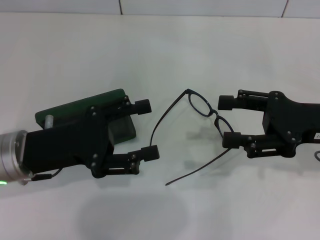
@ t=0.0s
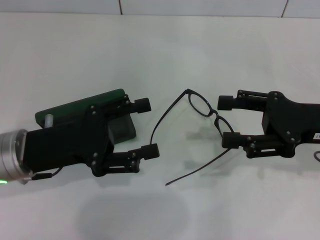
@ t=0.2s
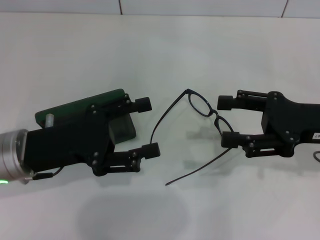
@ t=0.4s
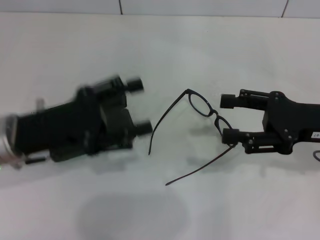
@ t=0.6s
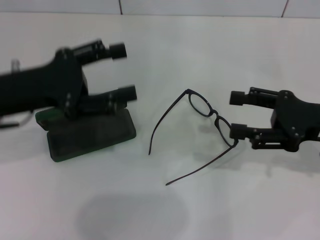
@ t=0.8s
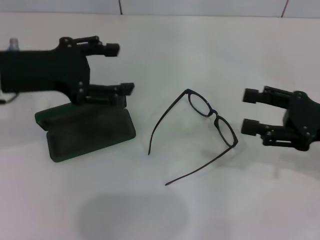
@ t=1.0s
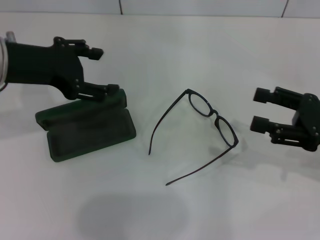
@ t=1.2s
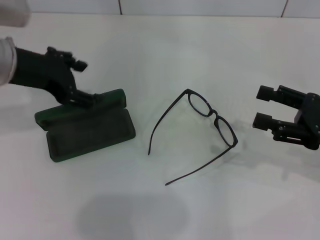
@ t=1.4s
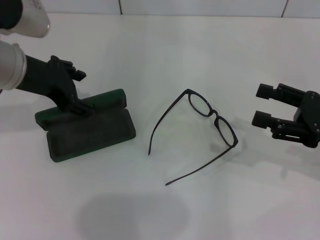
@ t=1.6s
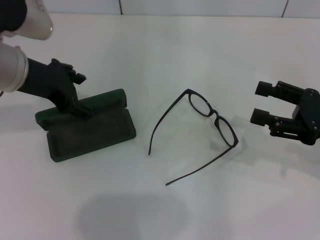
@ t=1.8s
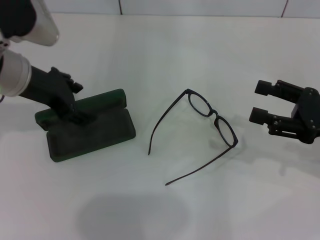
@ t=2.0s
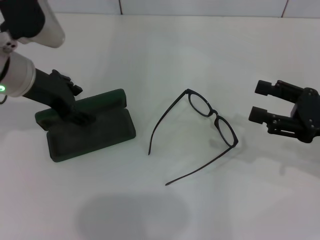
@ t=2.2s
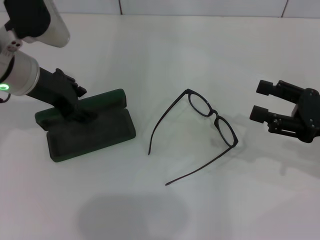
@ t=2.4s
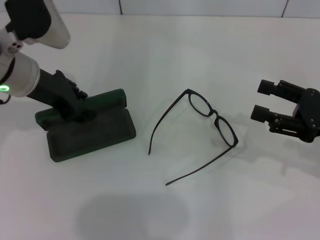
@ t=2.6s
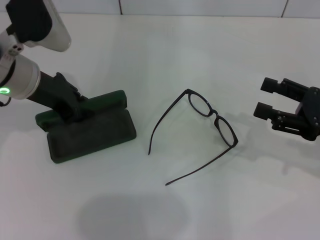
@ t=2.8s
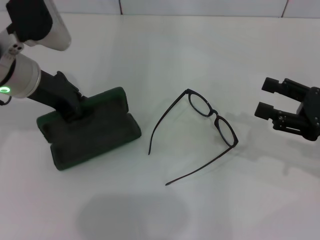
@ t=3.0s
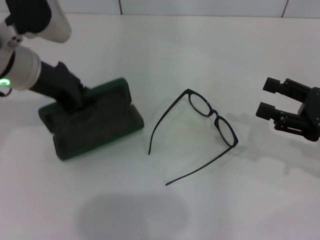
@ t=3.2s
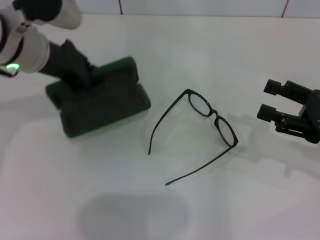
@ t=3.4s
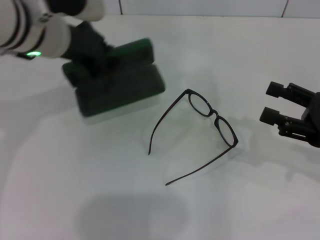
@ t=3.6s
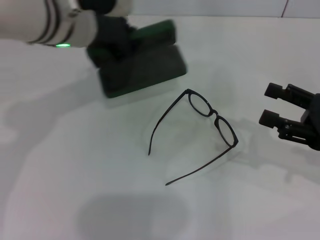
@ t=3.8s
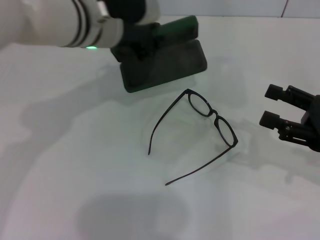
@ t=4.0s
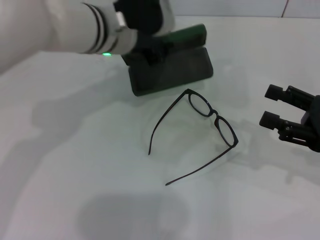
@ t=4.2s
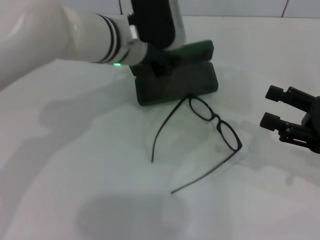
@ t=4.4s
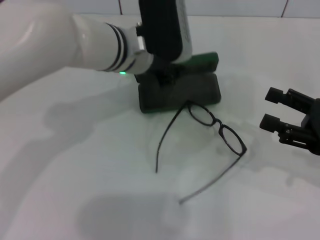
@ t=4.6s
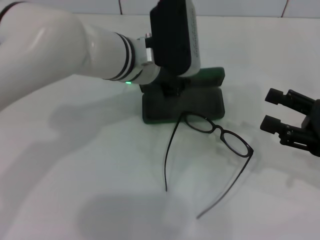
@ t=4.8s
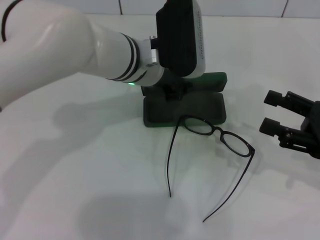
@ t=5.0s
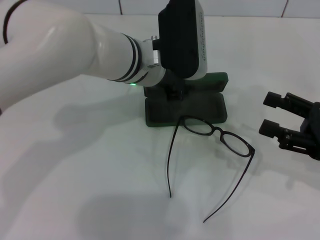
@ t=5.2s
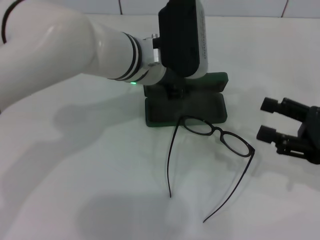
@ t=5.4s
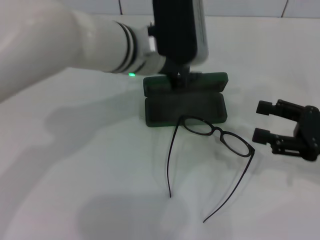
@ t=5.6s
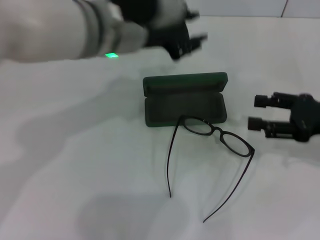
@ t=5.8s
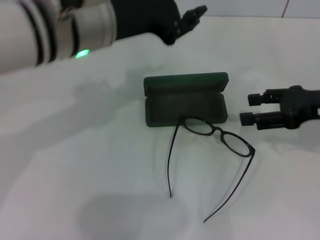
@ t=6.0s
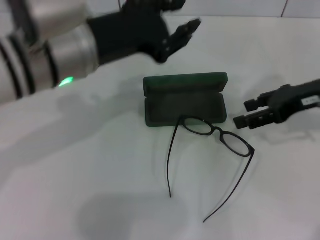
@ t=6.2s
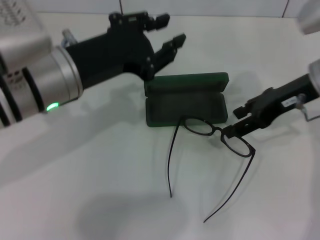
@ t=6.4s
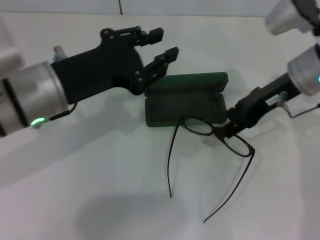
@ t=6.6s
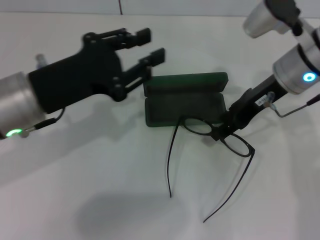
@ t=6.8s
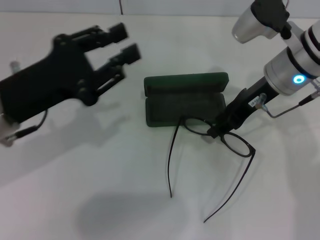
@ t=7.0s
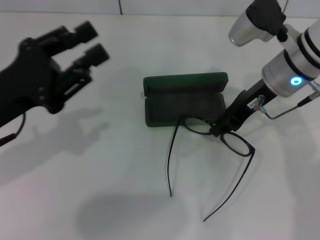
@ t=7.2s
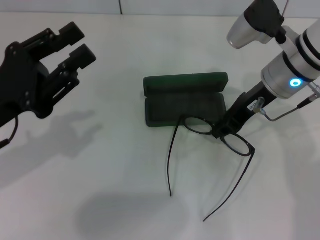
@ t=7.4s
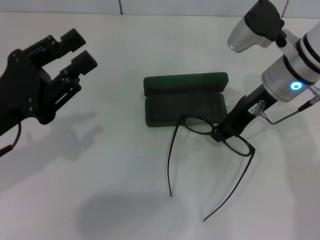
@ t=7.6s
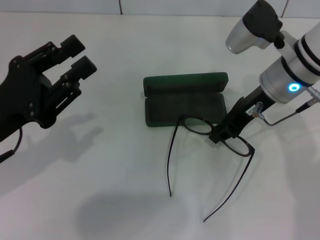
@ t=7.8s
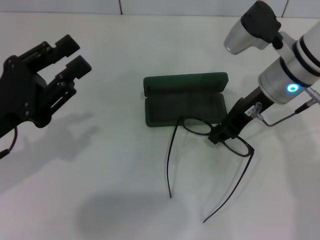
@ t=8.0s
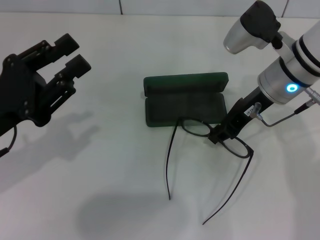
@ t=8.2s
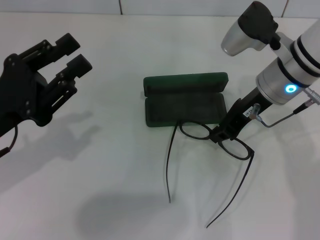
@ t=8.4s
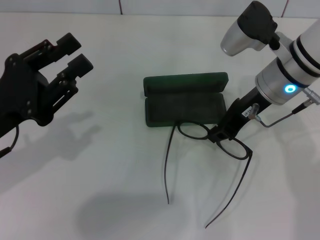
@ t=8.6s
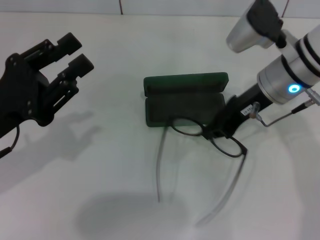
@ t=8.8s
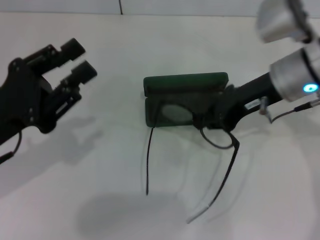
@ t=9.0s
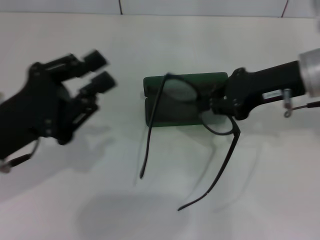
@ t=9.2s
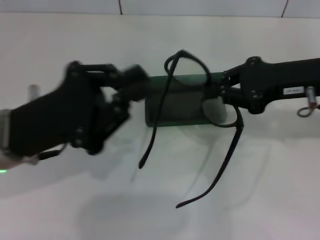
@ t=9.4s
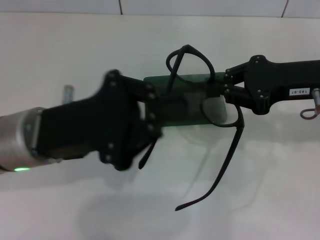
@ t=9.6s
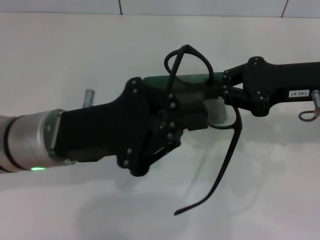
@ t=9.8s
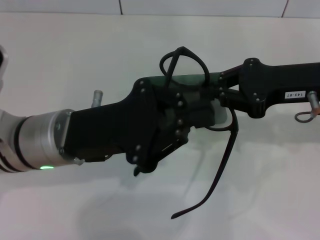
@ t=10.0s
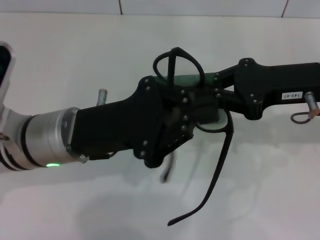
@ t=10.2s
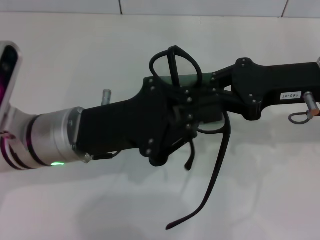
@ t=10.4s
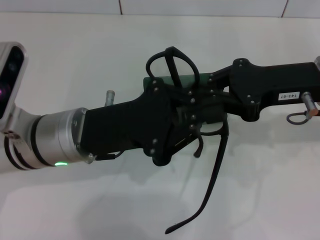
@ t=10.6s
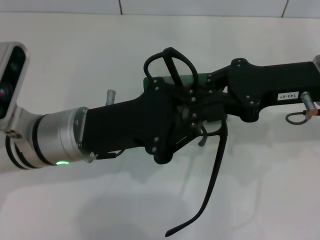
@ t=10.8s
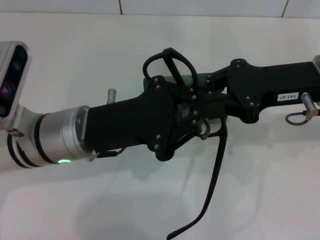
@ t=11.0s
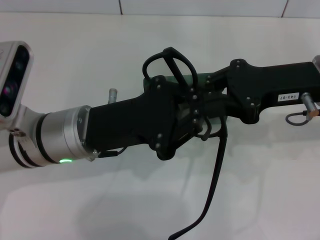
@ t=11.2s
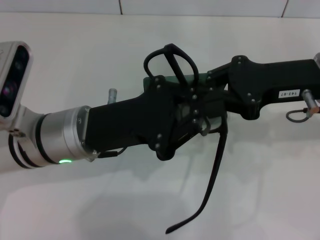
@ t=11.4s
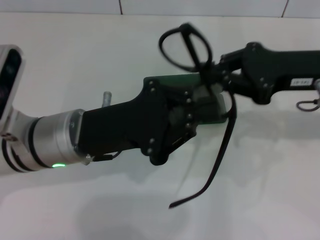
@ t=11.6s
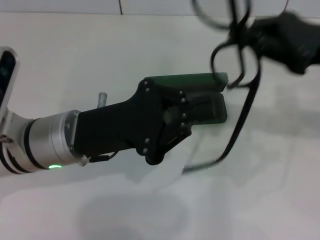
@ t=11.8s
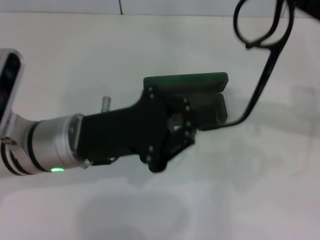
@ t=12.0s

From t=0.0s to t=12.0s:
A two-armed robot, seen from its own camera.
Step, from t=0.0s to t=2.8s: Grab the glasses case with your left hand.
Step, from t=3.0s to t=5.2s: Place the glasses case in the center of the table with your left hand.
Step, from t=5.6s to t=8.4s: Grab the eyeglass frame with your right hand.
From t=0.0s to t=1.6s: The left gripper heads upward and forward, covering approximately 15 cm. Meanwhile the right gripper ends up about 5 cm from where it was.
From t=1.6s to t=3.0s: The left gripper closes up.
From t=3.0s to t=4.4s: The left gripper shifts some 15 cm to the right.
From t=4.4s to t=6.0s: The right gripper heads forward, covering about 5 cm, while the left gripper goes approximately 10 cm backward and upward.
From t=6.0s to t=7.6s: The right gripper heads to the left and forward, covering some 15 cm, and closes. The left gripper is displaced to the left, downward and backward by about 20 cm.
From t=9.0s to t=10.4s: The right gripper changes place by some 5 cm; the left gripper moves to the right, some 10 cm, and closes.
From t=10.4s to t=12.0s: The right gripper shifts roughly 5 cm to the right.

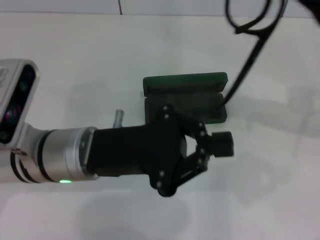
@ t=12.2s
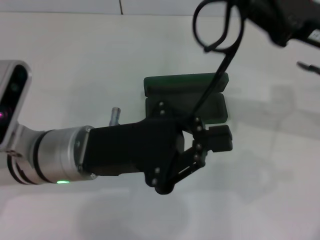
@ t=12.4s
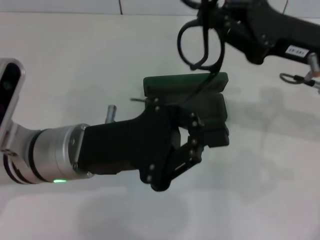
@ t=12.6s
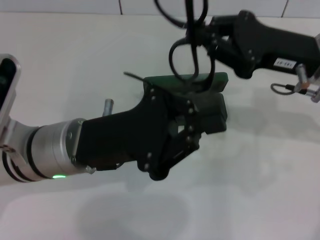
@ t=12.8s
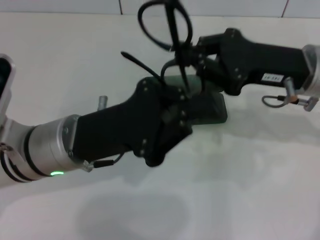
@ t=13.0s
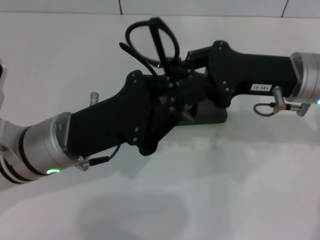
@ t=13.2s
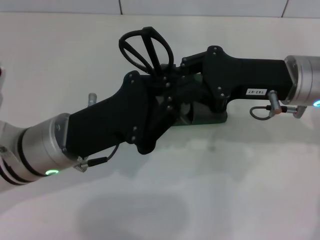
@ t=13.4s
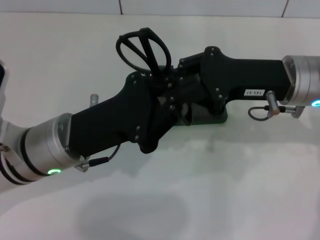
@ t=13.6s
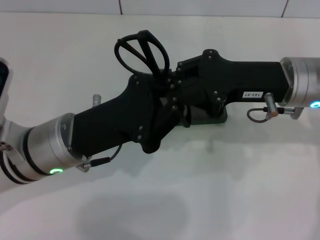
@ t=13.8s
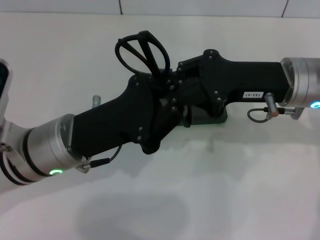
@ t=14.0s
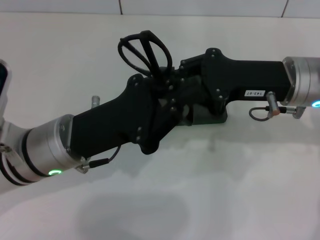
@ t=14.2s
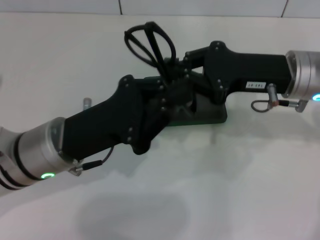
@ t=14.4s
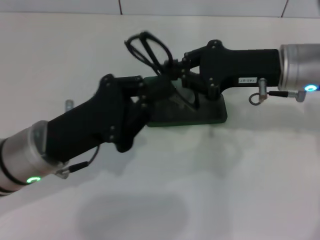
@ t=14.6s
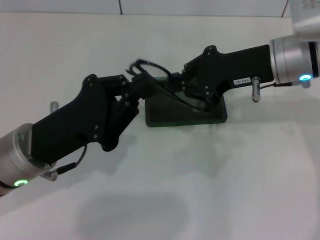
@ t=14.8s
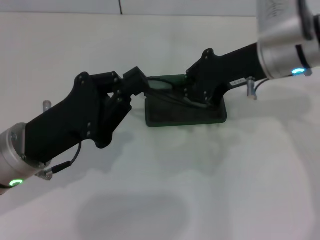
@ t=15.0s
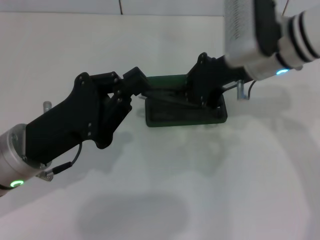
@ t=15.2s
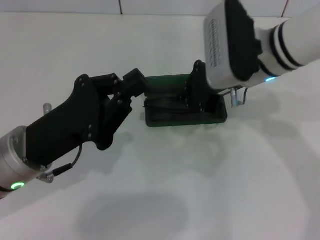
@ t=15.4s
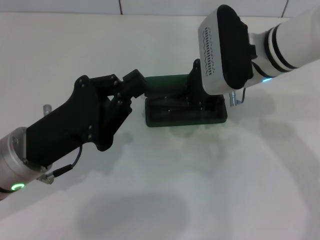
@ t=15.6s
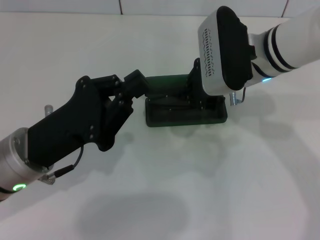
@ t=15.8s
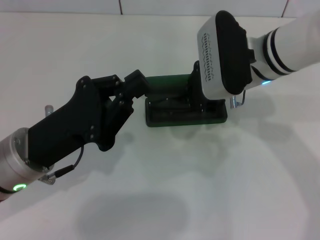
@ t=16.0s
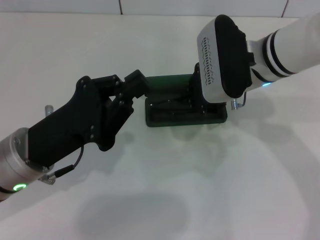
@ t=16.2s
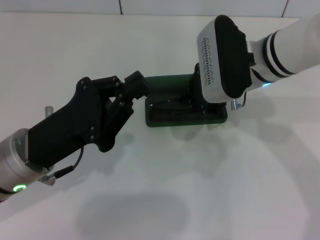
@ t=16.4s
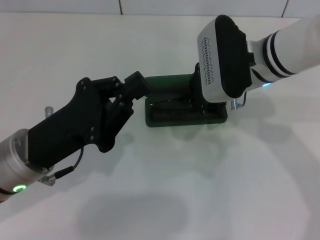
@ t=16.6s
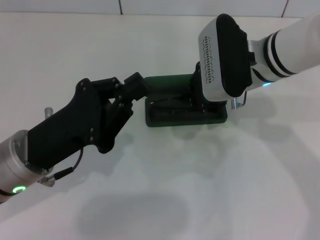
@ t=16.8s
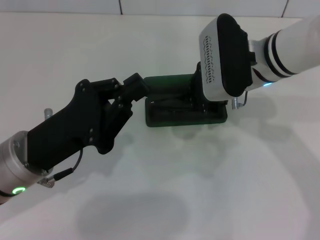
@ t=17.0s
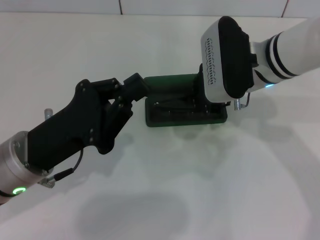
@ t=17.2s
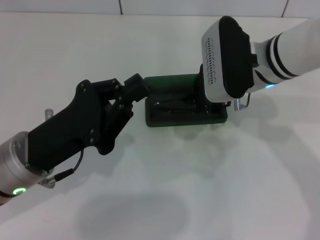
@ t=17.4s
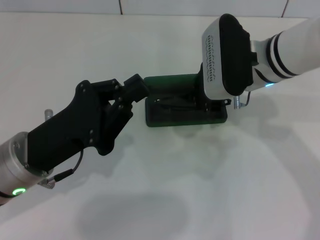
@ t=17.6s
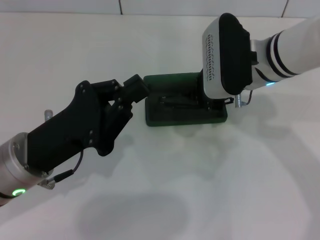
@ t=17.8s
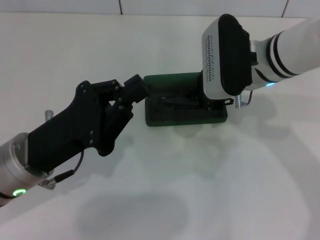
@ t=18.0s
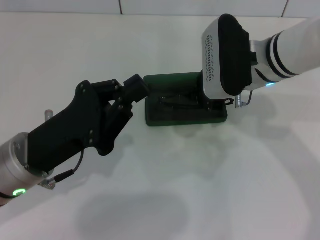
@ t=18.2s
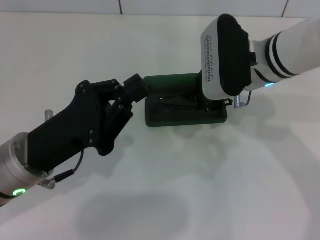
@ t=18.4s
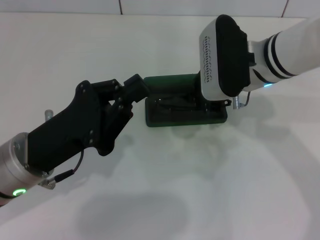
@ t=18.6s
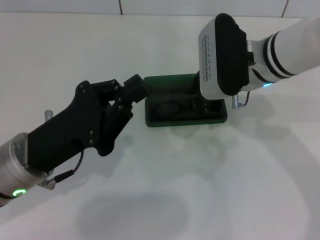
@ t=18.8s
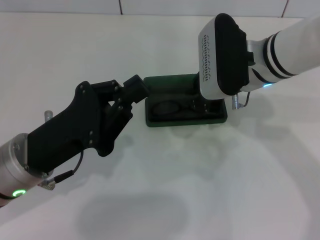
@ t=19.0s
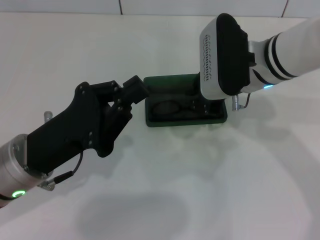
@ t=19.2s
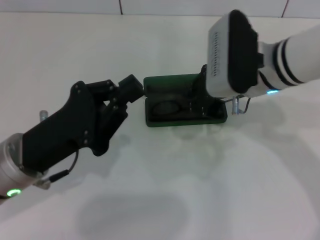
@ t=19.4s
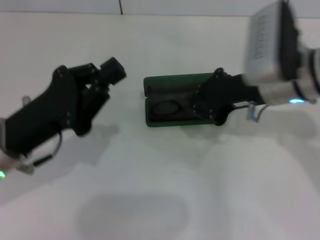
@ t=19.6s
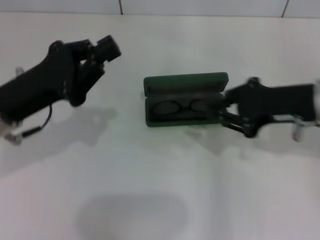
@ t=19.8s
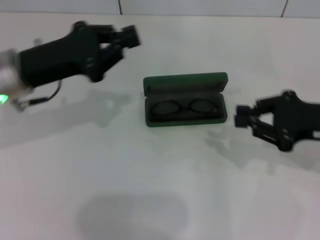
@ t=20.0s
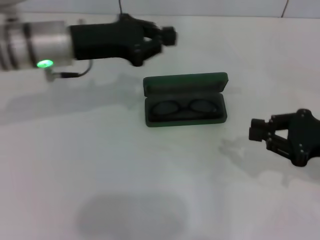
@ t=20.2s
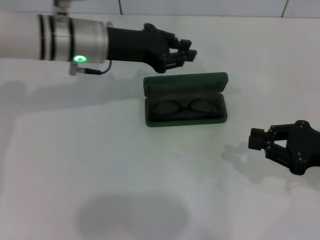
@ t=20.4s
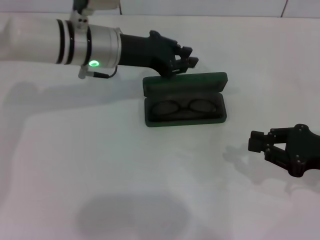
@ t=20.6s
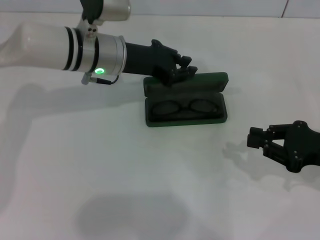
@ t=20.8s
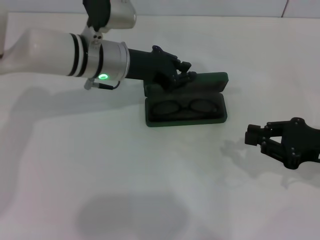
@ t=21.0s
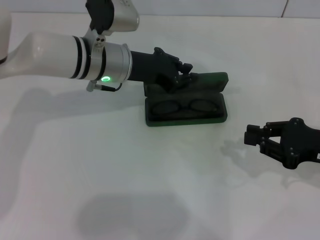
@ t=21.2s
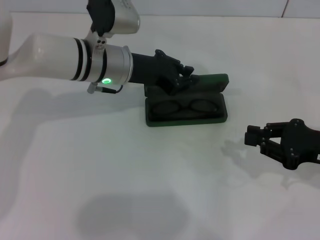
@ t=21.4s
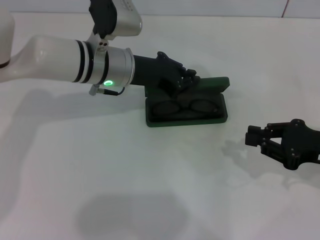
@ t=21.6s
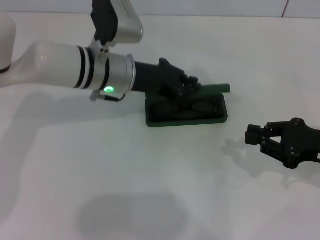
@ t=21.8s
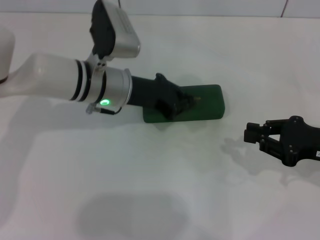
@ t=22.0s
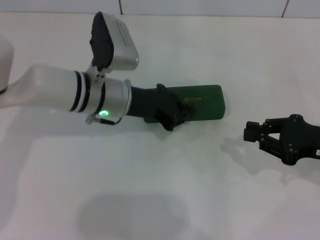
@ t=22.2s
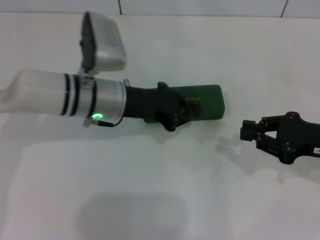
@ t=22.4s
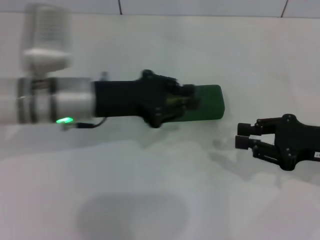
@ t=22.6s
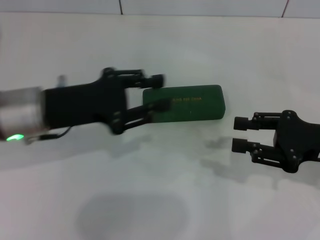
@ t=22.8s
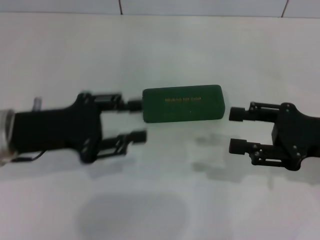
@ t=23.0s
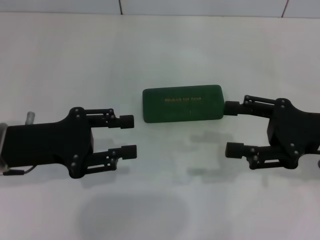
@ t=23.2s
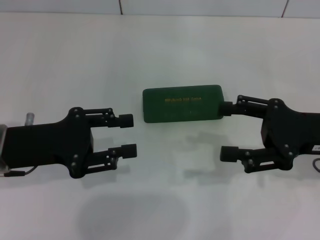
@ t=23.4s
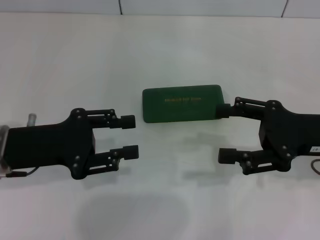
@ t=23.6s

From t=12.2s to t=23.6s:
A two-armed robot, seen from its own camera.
Step, from t=13.6s to t=18.6s: Put the glasses into the case with your right hand.
Step, from t=19.0s to t=22.0s: Close the glasses case with your left hand.
From t=12.2s to t=13.6s: The right gripper goes some 10 cm to the left.
From t=13.6s to t=15.0s: The right gripper shifts by some 5 cm.
From t=15.0s to t=16.4s: The right gripper changes place by about 5 cm.
From t=16.4s to t=17.8s: Neither gripper changes place.
From t=17.8s to t=19.4s: There are only small adjustments of the grippers.
From t=19.4s to t=20.8s: The right gripper goes some 20 cm to the right, backward and downward. Meanwhile the left gripper travels forward and to the right by some 20 cm.
From t=20.8s to t=22.2s: The left gripper shifts by some 5 cm.
From t=22.2s to t=23.6s: The left gripper heads to the left and backward, covering approximately 15 cm, and opens its fingers, while the right gripper shifts by some 5 cm, and opens.
